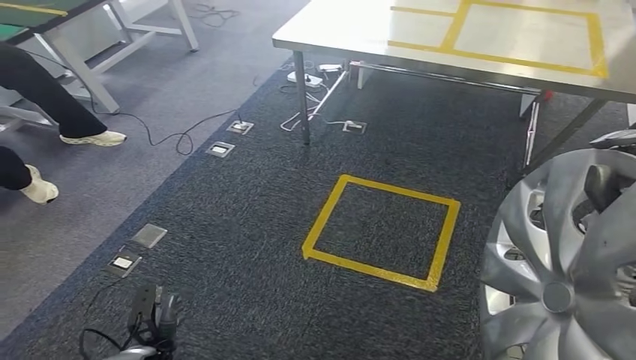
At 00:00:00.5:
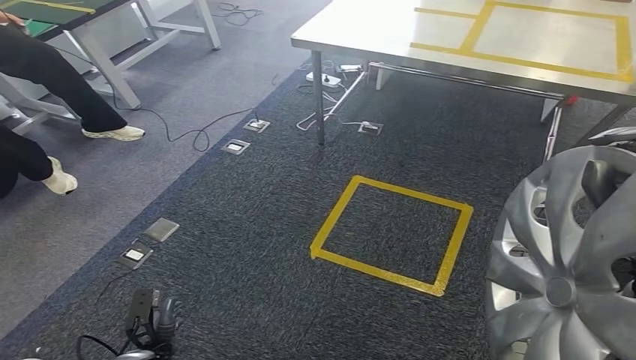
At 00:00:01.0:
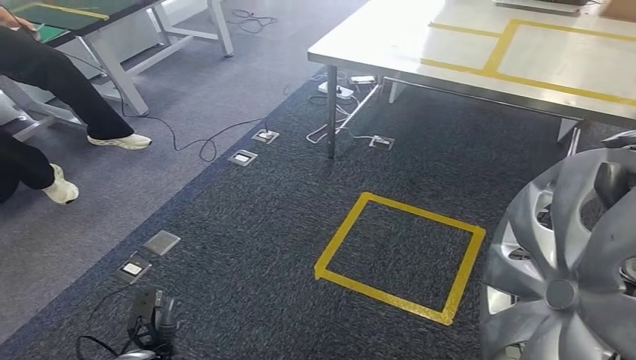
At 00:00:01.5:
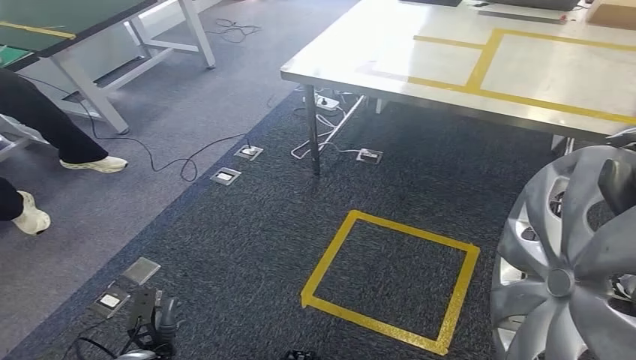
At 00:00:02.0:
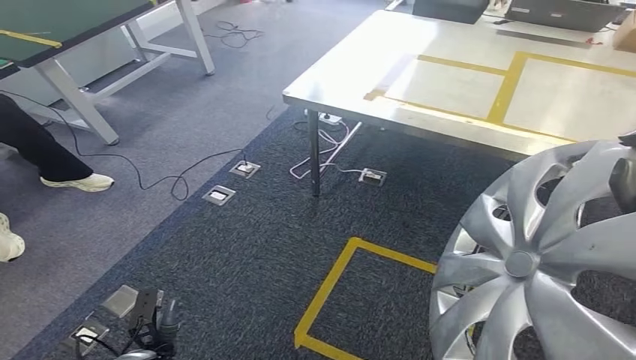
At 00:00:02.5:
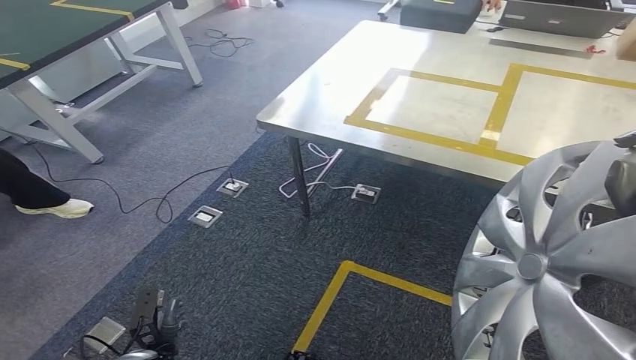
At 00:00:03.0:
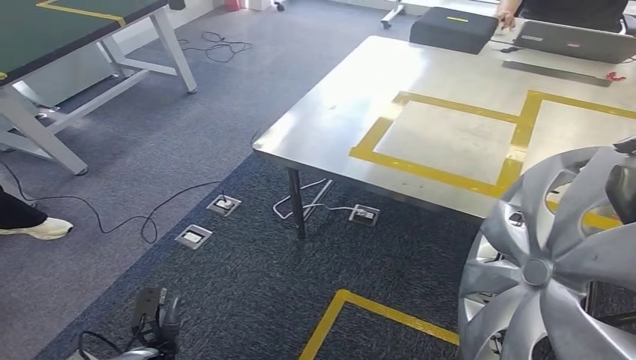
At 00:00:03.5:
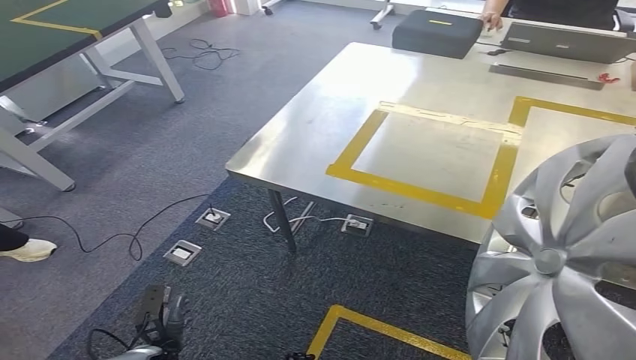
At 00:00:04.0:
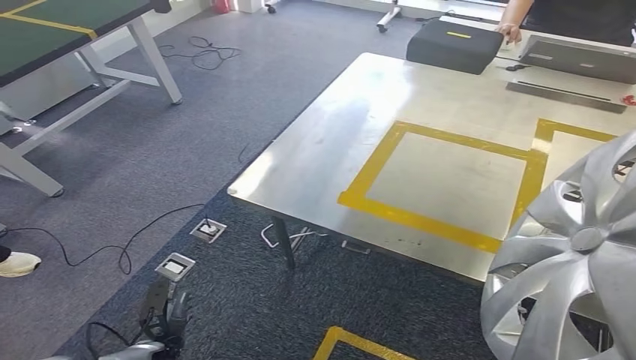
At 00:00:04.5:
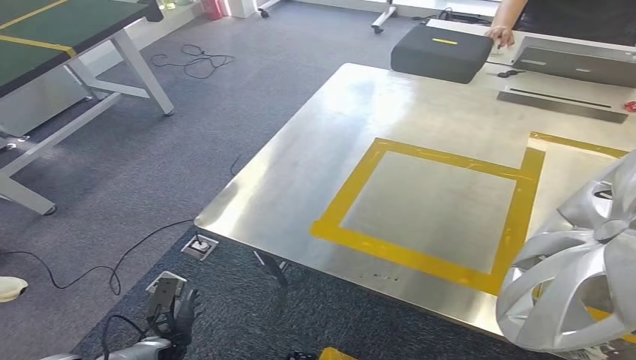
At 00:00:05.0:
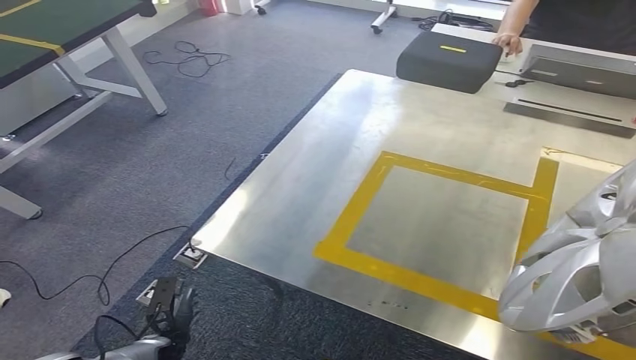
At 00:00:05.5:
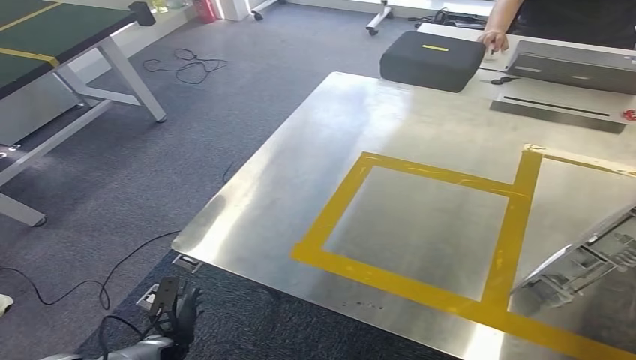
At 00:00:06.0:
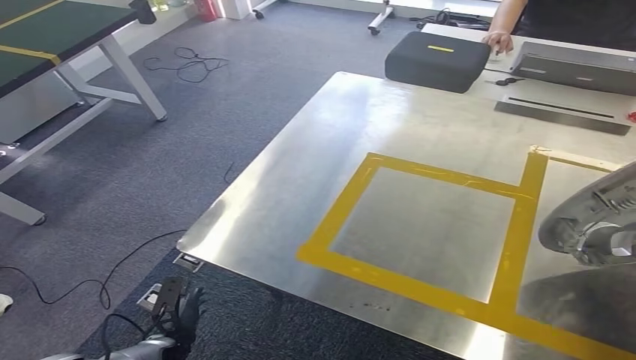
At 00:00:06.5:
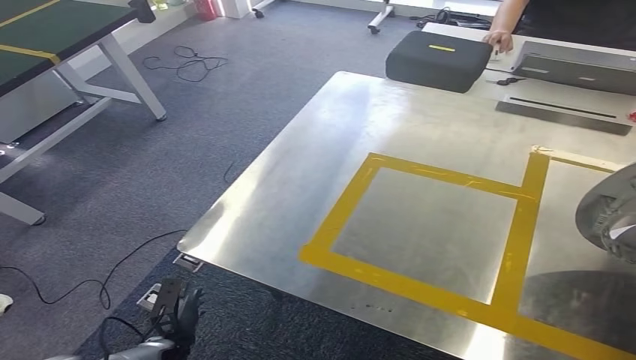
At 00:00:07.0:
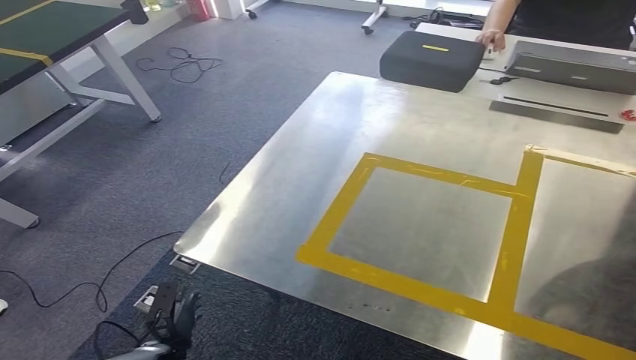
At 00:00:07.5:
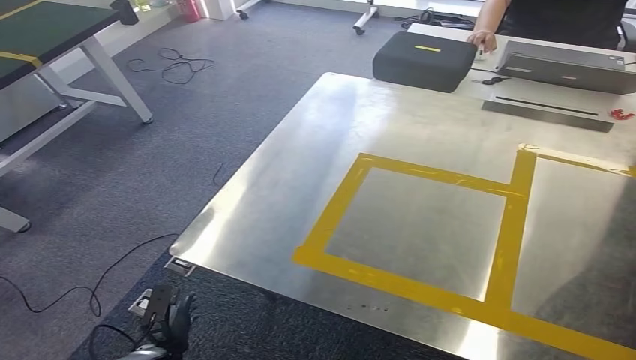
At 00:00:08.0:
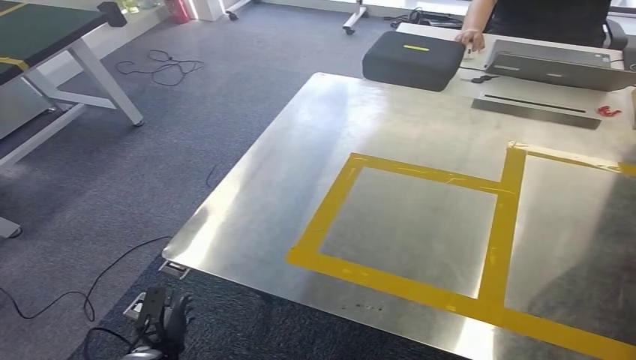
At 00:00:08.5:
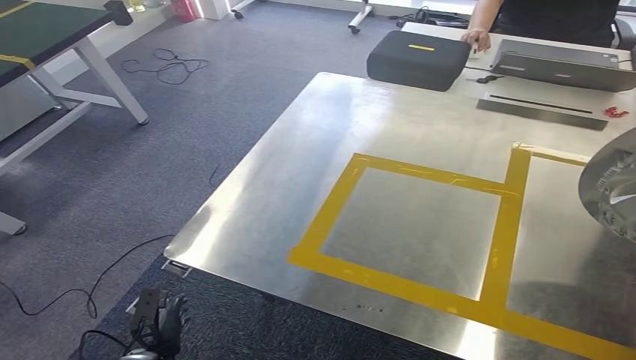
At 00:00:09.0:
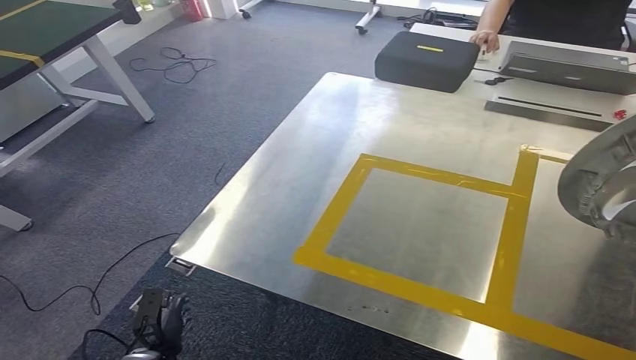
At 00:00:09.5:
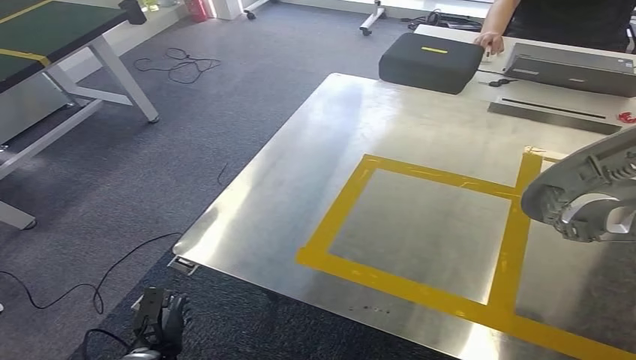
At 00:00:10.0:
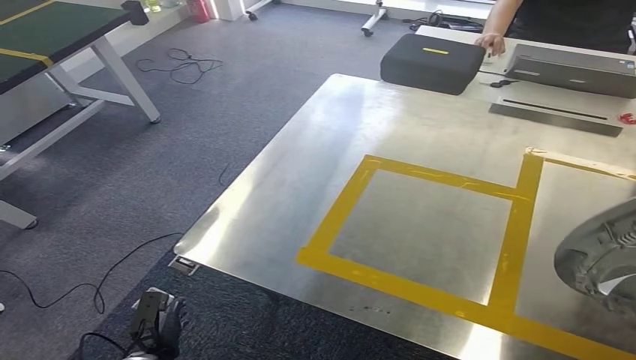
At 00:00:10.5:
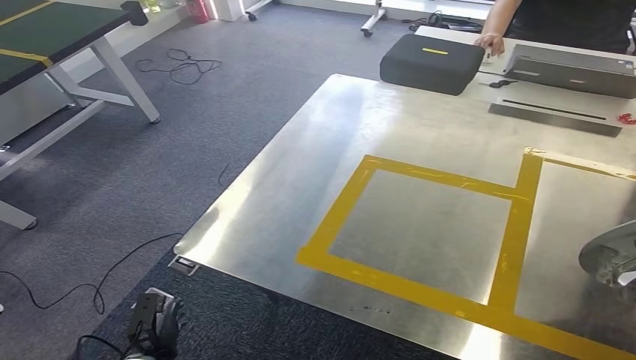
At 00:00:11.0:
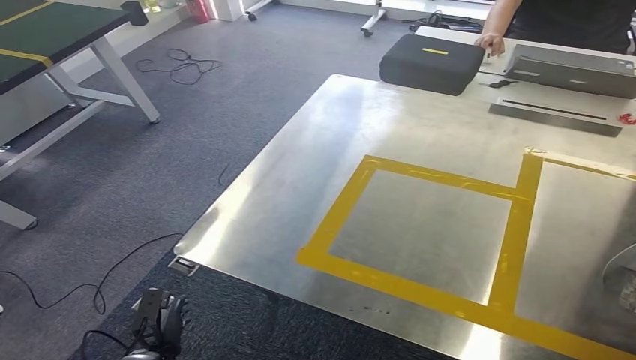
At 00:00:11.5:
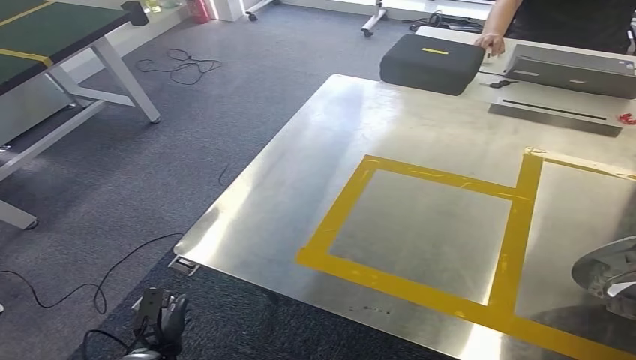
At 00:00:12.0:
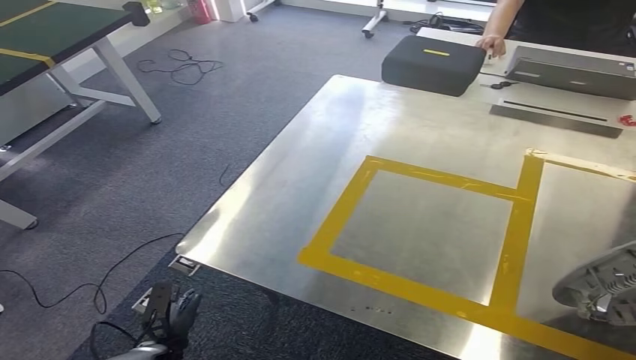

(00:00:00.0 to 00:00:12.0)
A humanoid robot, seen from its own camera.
Step, 00:00:00.0 - 00:00:03.5: Move the small component to the workbench.
00:00:10.0 - 00:00:12.0: The right hand moves downward, some 5 cm.

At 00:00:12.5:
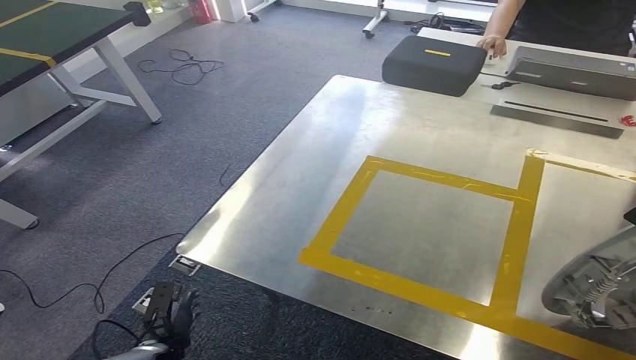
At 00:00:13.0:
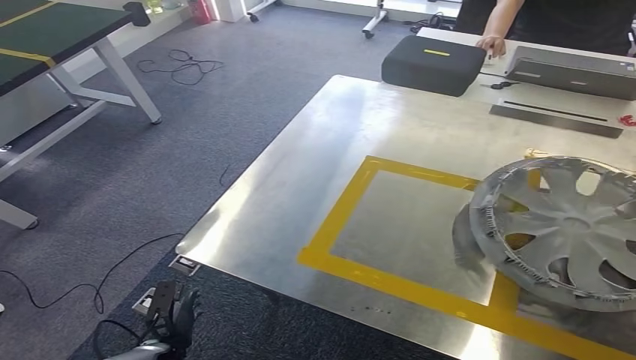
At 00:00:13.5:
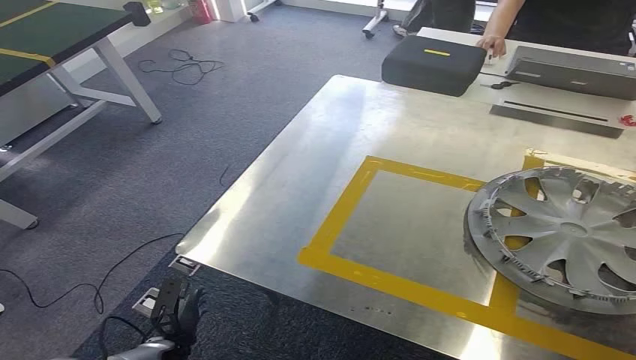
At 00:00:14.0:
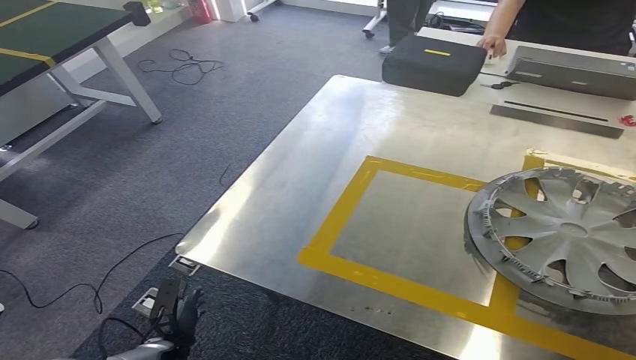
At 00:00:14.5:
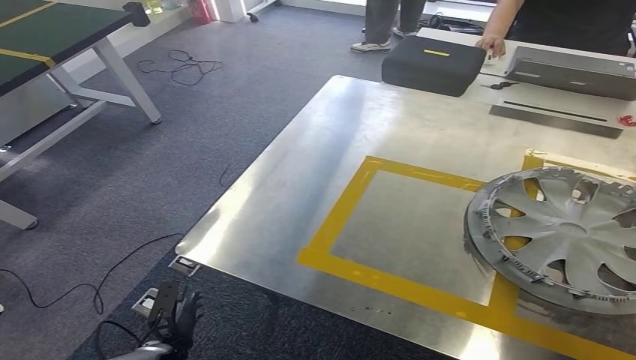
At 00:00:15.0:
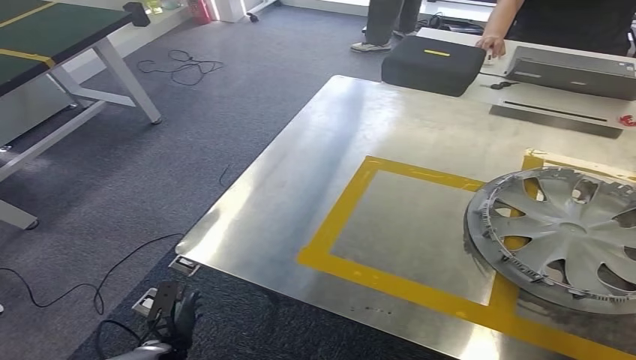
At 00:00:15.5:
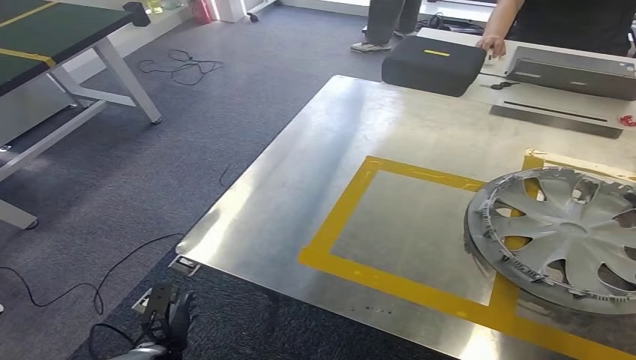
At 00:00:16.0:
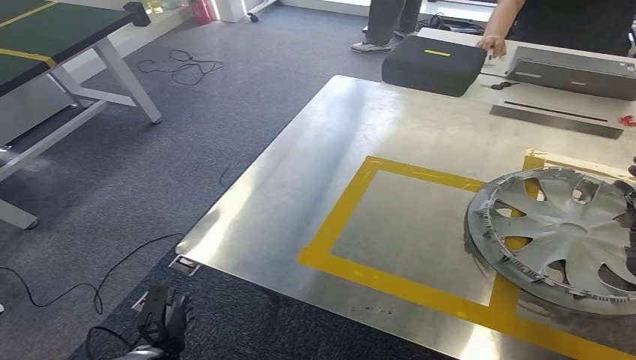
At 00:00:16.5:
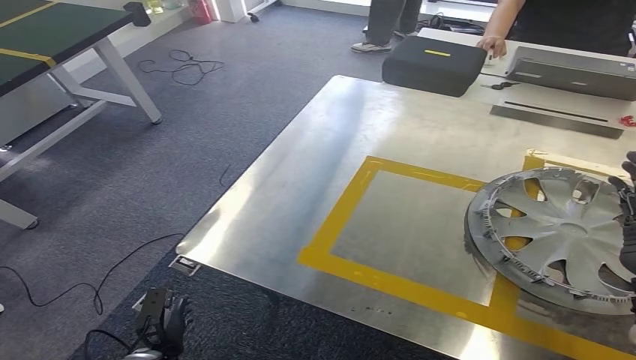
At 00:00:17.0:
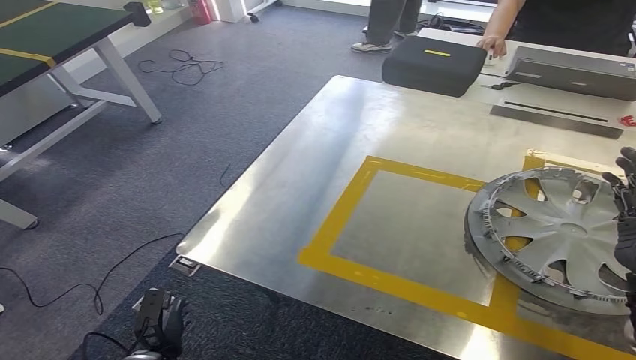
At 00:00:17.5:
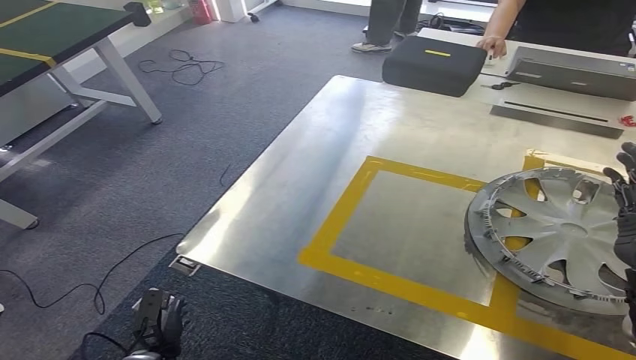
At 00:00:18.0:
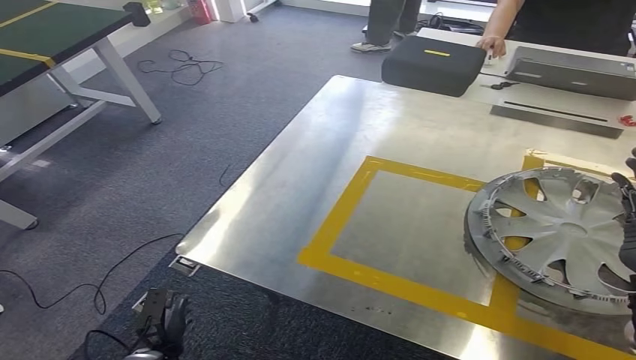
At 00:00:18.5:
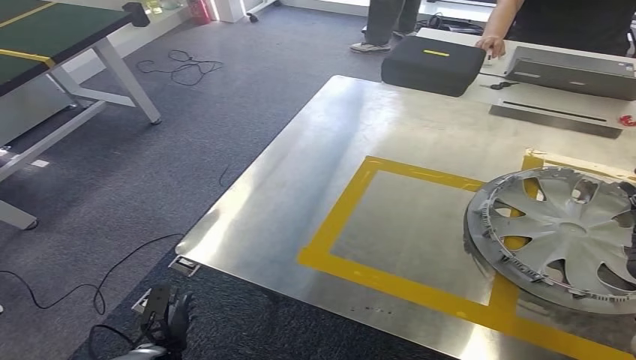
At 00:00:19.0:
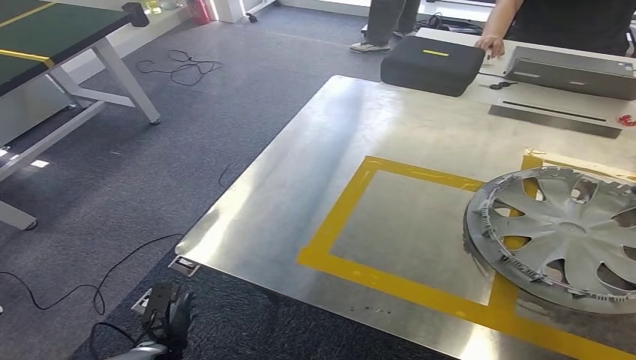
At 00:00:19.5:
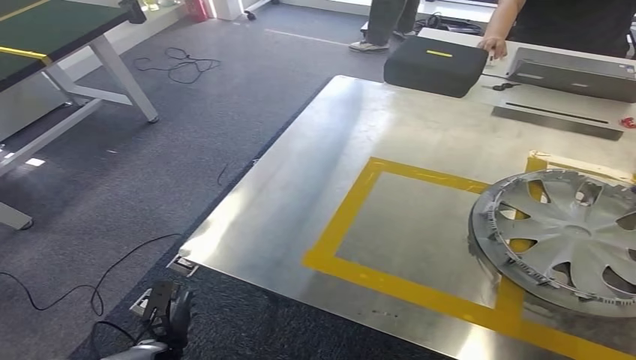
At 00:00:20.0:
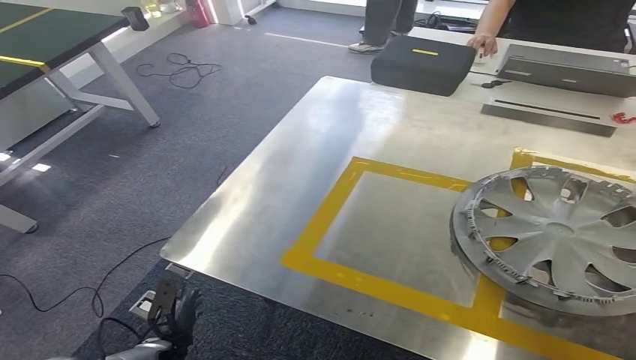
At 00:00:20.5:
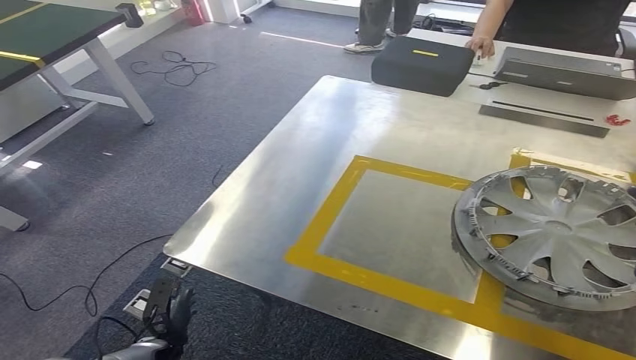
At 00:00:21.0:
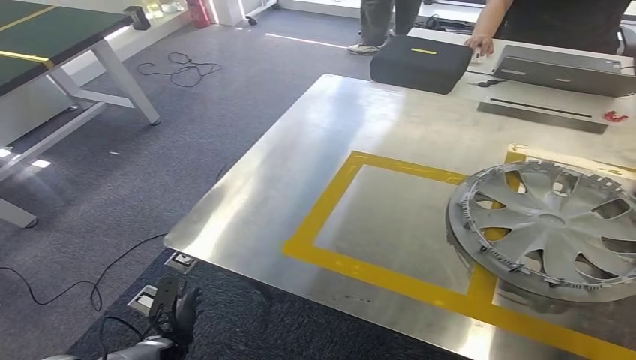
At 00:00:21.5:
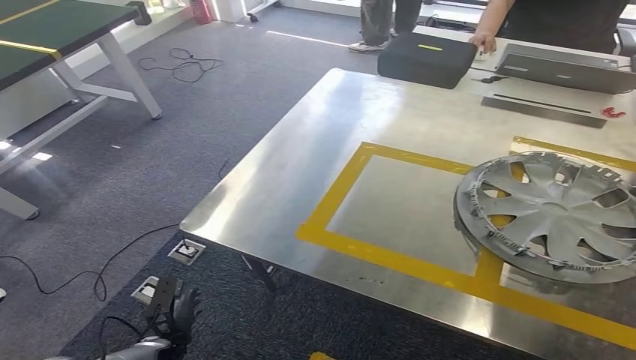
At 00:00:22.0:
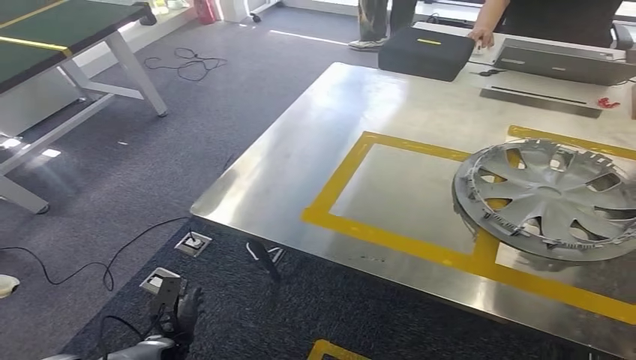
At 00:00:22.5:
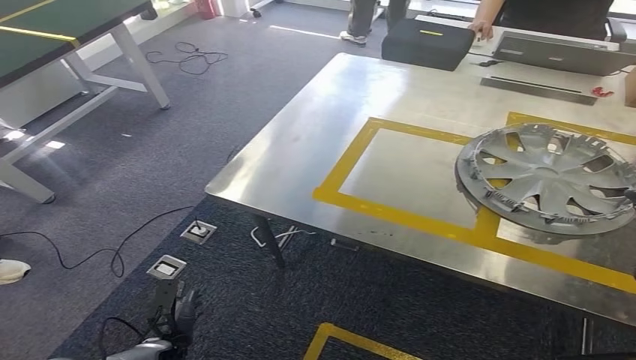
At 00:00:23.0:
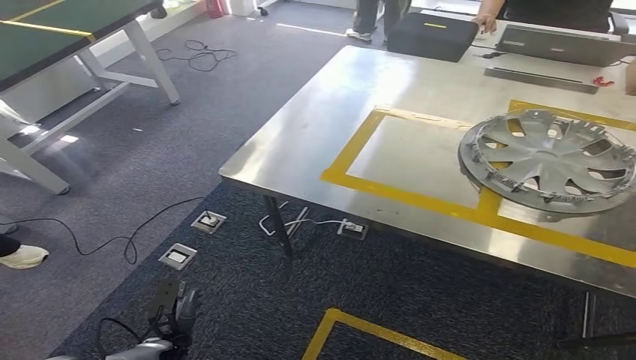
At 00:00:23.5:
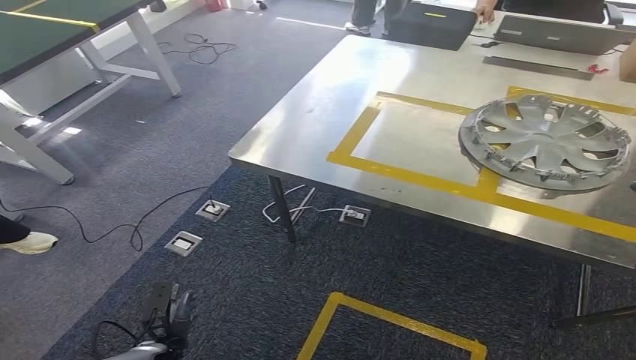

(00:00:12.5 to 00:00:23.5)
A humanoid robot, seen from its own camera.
Step, 00:00:12.5 - 00:00:14.5: Insert the small component into the corresponding slot on the workbench.
00:00:12.5 - 00:00:14.5: The right hand is displaced downward by about 10 cm.
00:00:14.5 - 00:00:16.0: The hands stay close to where they were, moving slightly.
00:00:18.0 - 00:00:20.0: The hands stay close to where they were, moving slightly.
